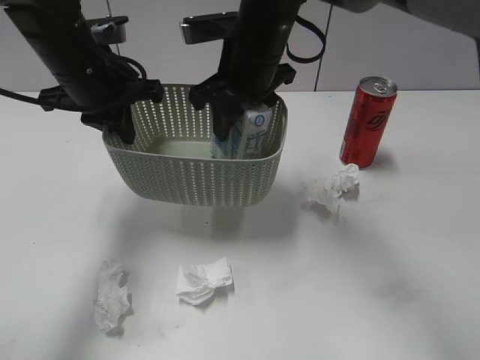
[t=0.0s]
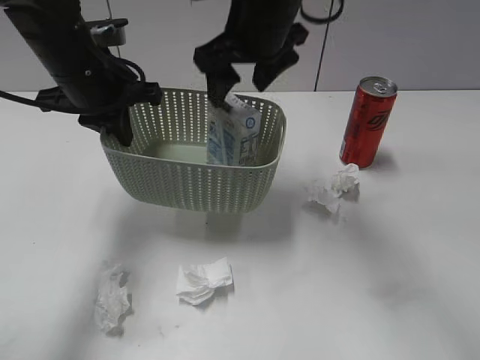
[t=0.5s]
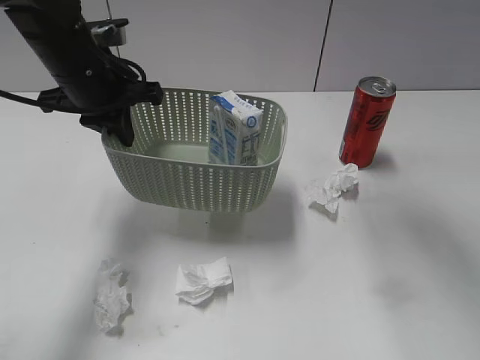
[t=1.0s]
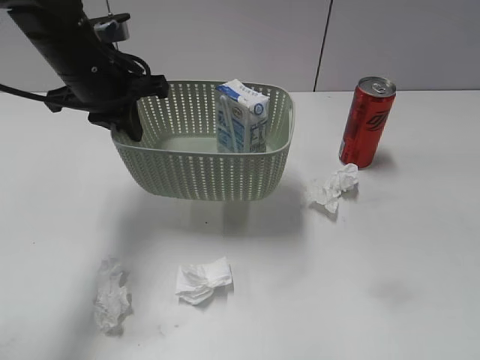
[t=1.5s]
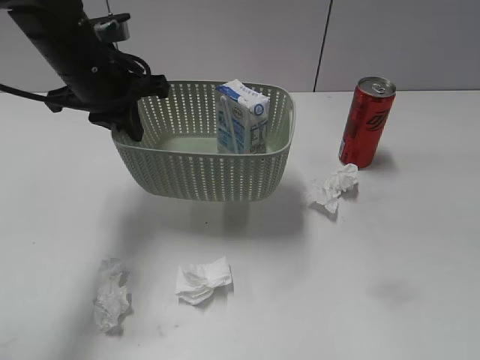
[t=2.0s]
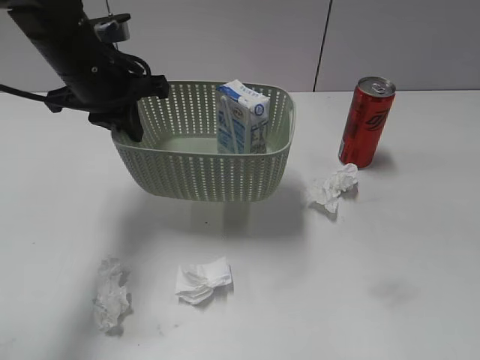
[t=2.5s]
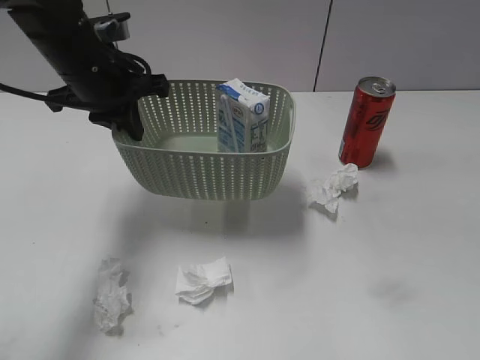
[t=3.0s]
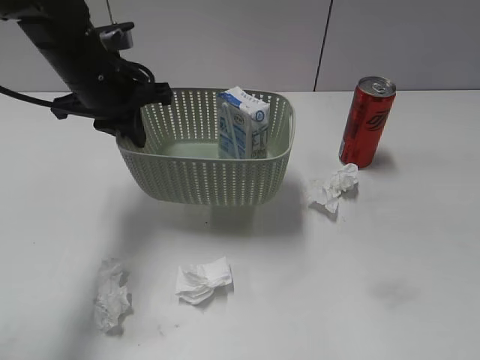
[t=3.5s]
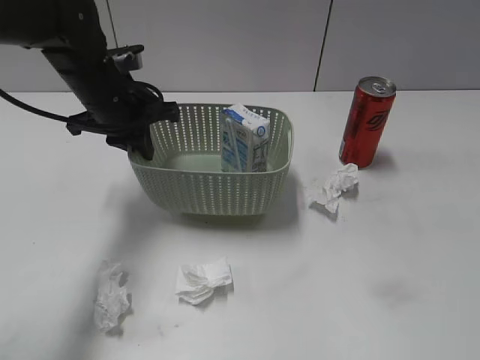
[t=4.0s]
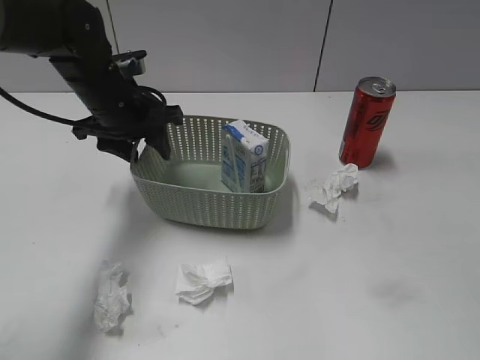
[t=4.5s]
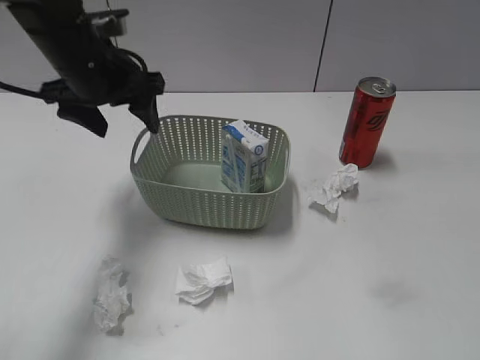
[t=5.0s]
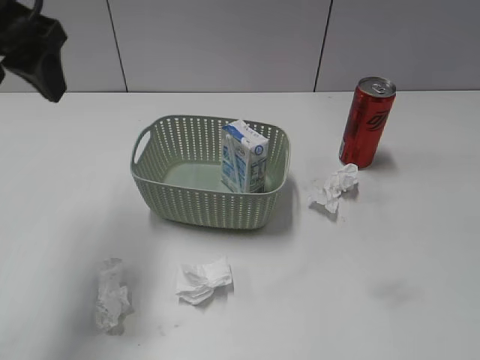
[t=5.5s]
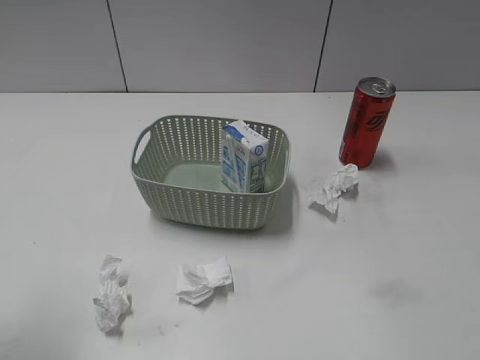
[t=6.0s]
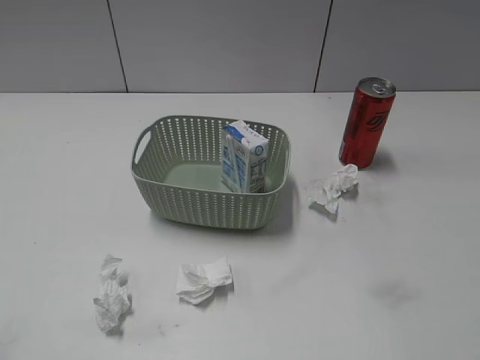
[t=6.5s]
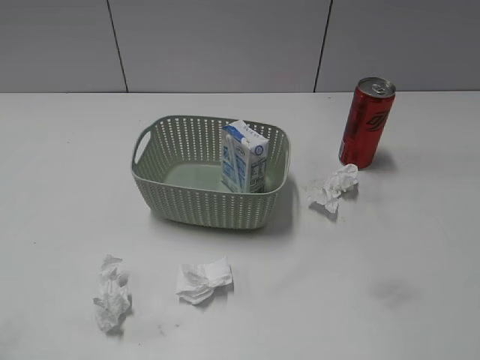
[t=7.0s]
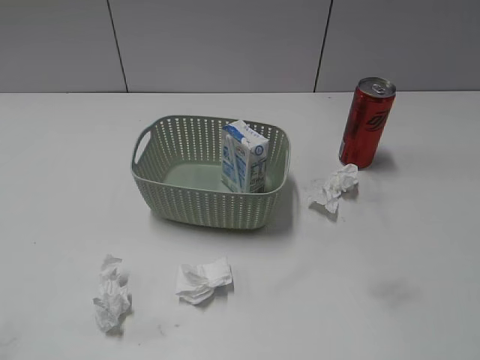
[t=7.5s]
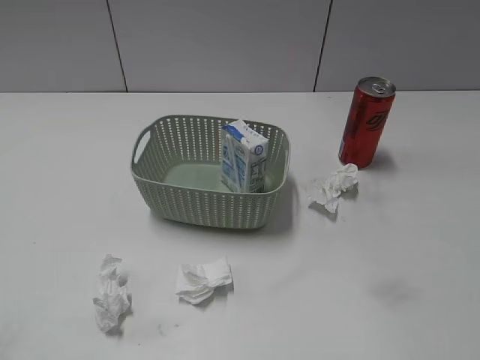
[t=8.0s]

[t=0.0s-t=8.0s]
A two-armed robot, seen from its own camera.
Step, t=1.0s to t=5.0s: Place the basket on the table with left gripper.
t=0.0s to t=2.0s: The right gripper moves backward and to the right, some 50 cm, and opens up.
t=4.0s to t=6.0s: The left gripper shifts roughly 30 cm backward, upward and to the left, and opens up.
